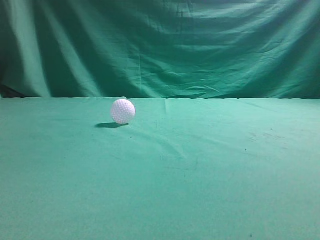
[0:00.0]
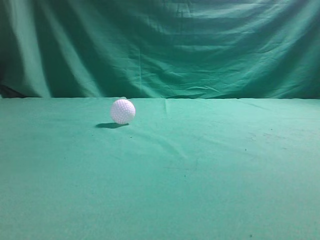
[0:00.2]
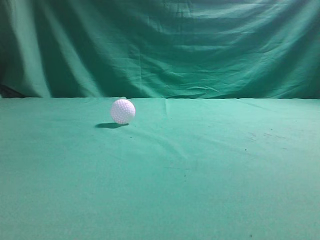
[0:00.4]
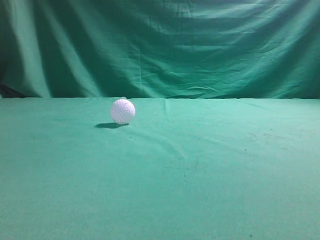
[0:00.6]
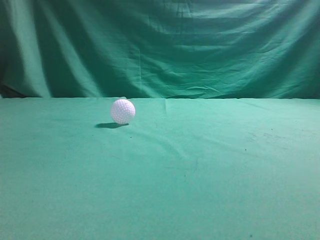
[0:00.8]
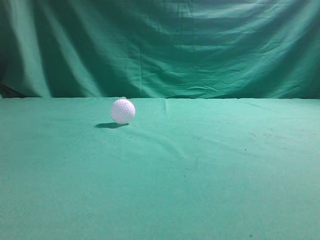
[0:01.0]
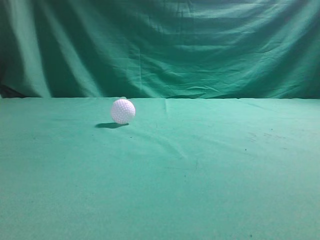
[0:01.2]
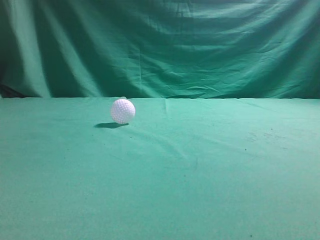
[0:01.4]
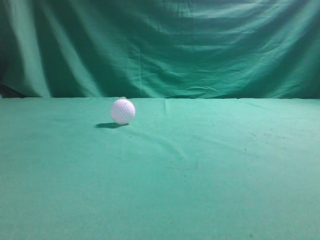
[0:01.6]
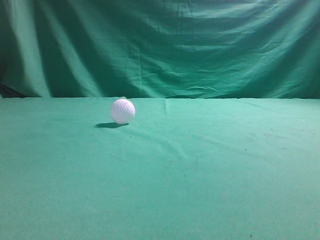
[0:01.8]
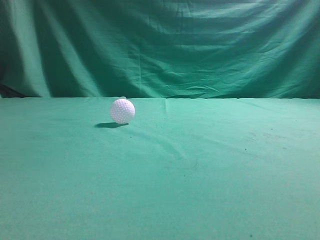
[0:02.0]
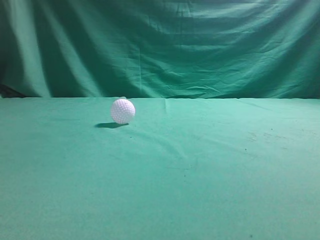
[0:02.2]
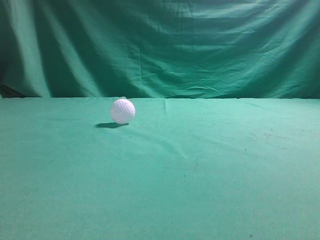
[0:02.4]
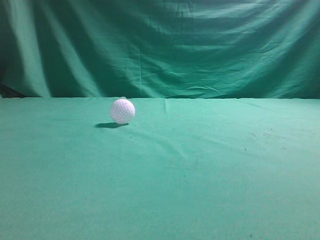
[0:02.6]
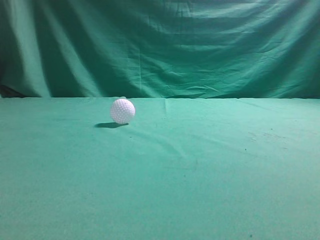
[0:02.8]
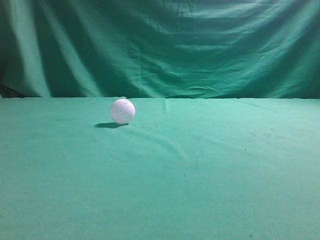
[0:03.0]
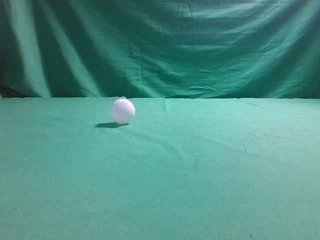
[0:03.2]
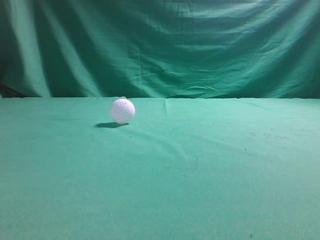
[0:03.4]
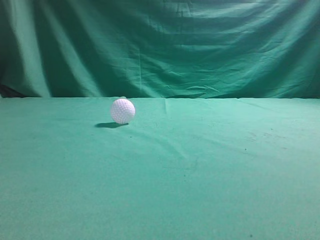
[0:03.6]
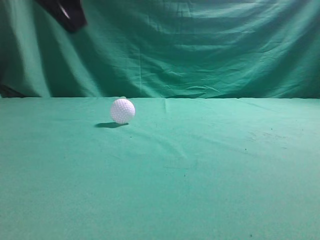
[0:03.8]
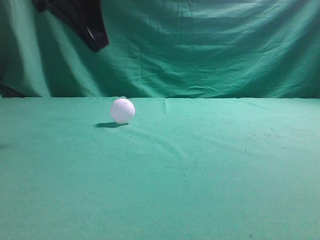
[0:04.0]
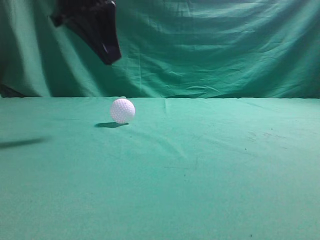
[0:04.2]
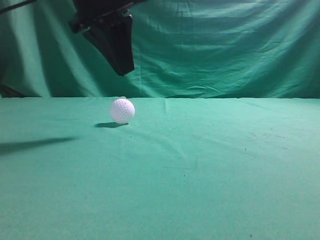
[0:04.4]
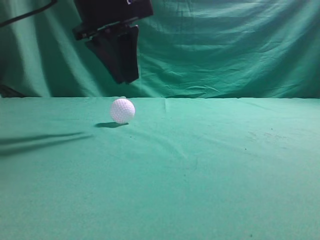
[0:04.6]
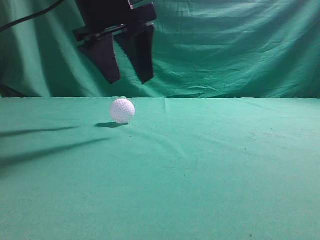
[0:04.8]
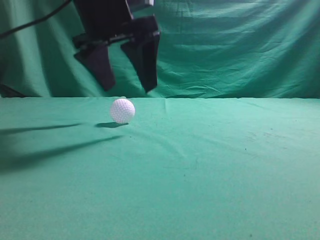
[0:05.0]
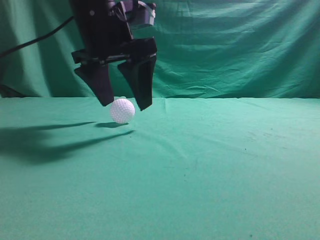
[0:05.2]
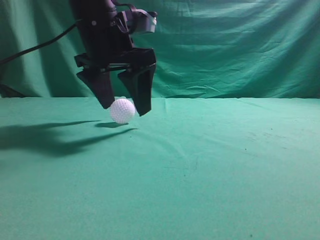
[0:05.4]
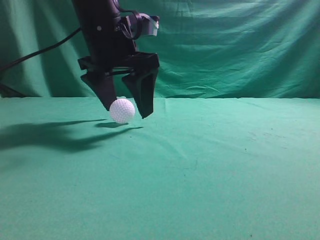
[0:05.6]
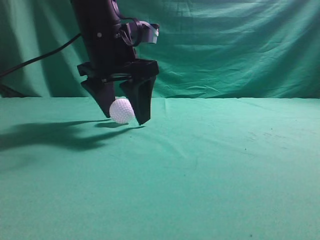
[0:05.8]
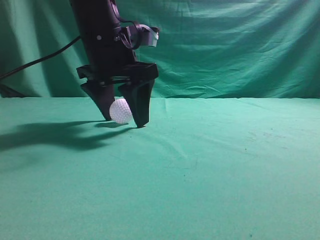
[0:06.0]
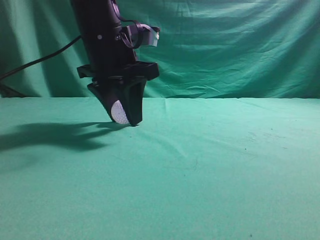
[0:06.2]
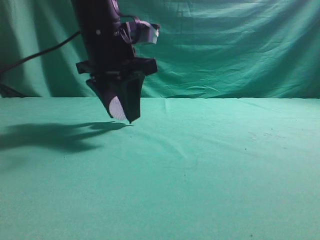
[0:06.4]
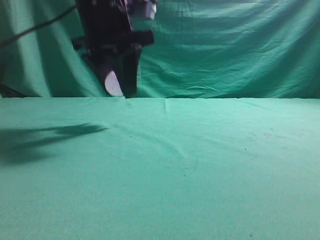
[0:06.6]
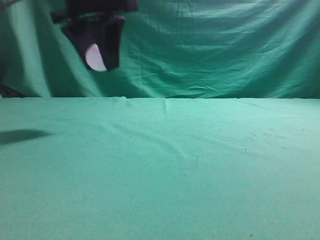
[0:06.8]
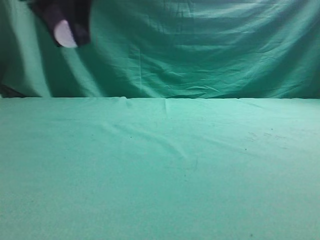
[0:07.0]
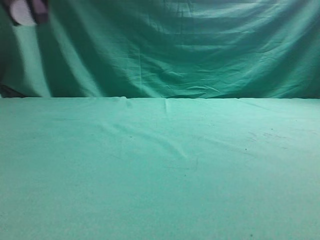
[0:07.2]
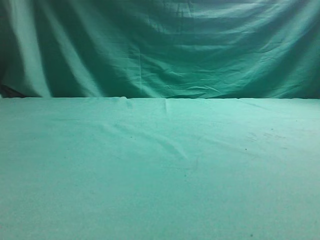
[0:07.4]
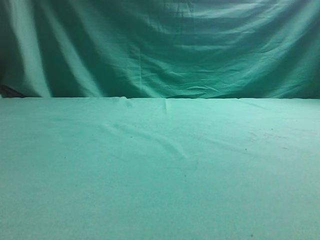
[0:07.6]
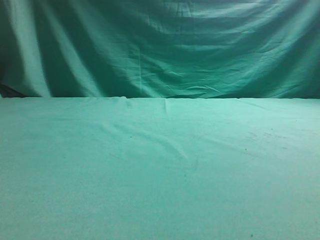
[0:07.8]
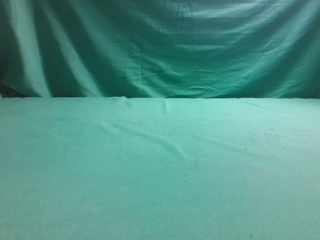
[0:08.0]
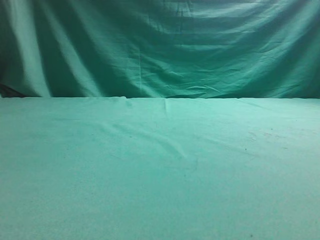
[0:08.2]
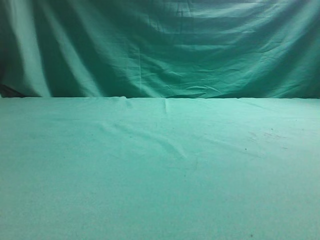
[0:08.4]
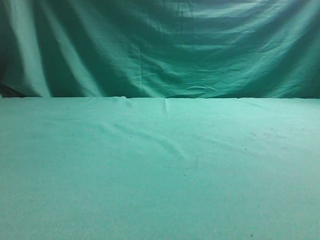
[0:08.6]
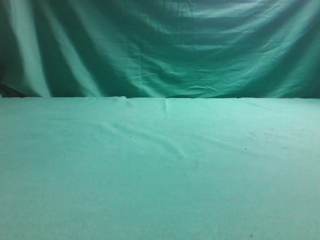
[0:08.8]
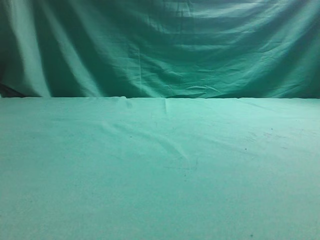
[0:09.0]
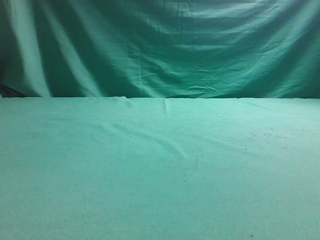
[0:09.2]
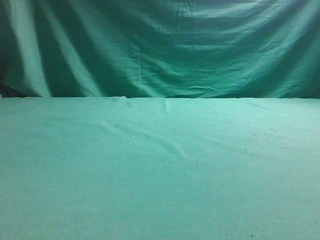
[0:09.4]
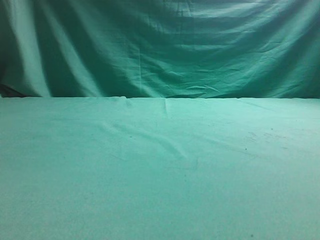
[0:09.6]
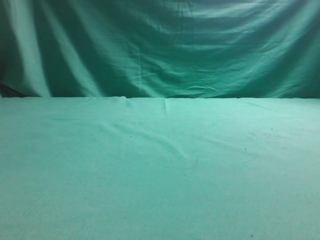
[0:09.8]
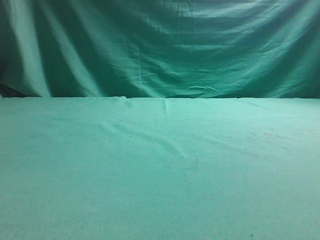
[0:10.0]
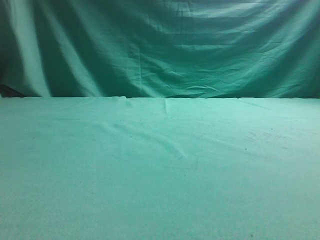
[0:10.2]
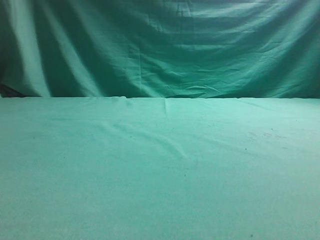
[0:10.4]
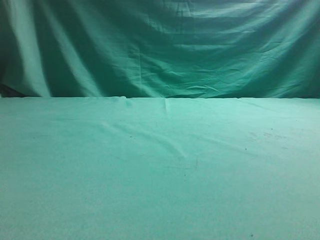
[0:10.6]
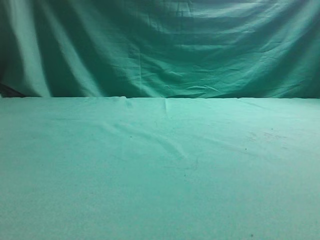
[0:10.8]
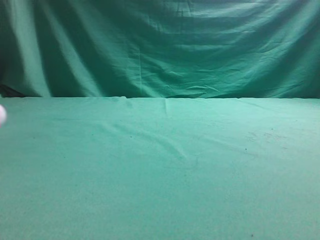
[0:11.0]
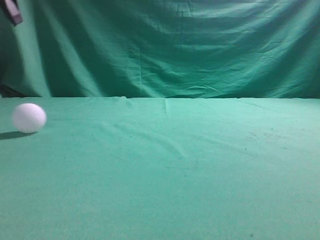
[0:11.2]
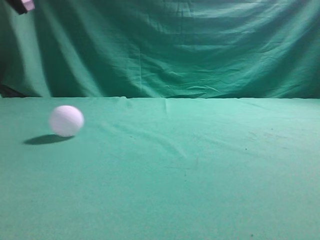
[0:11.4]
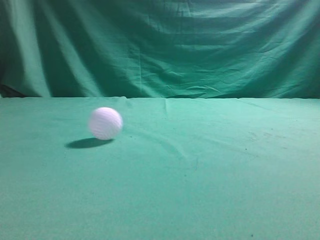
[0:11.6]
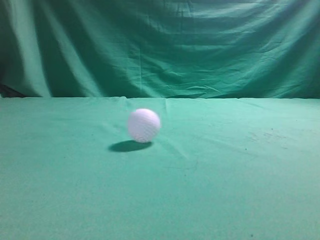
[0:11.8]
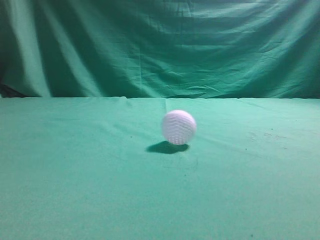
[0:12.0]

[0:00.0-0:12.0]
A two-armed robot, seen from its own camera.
Task of the whole recording: pick up the ball and place it on the plate, then pick up the ball from the plate and put it in the center of the table.
Step, 0:00.0 to 0:06.4: Grab the spherical object with your left arm.
Step, 0:06.6 to 0:10.4: Place the sphere on the white object.
0:03.0 to 0:04.4: The left gripper shifts approximately 30 cm forward and to the right.
0:04.4 to 0:06.0: The left gripper moves downward, approximately 5 cm, and opens up.
0:06.0 to 0:07.6: The left gripper moves to the left and upward, roughly 25 cm, and closes.
0:10.4 to 0:12.0: The left gripper is displaced upward and to the right by about 25 cm, and closes.

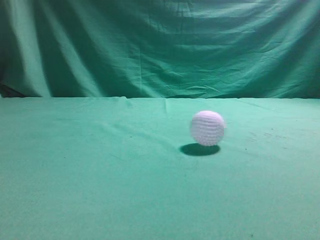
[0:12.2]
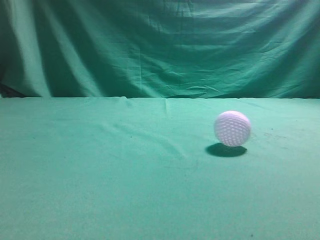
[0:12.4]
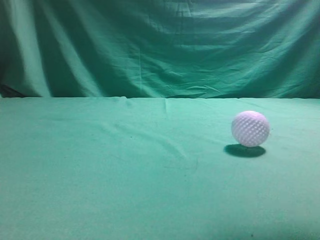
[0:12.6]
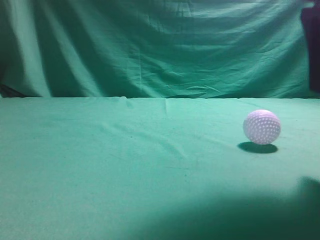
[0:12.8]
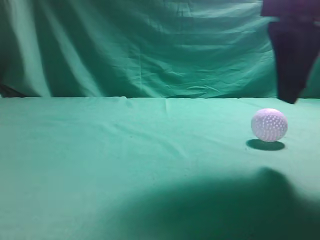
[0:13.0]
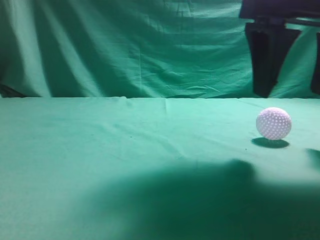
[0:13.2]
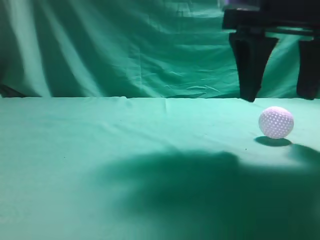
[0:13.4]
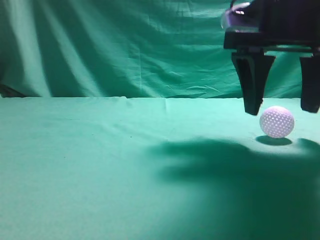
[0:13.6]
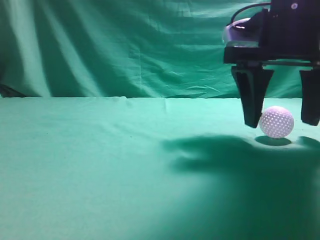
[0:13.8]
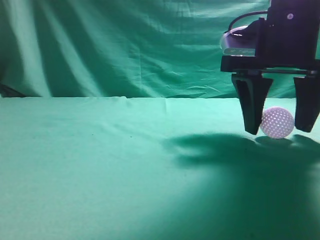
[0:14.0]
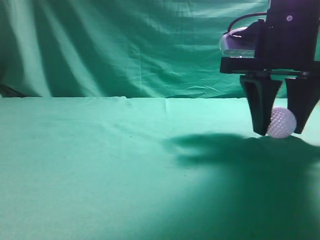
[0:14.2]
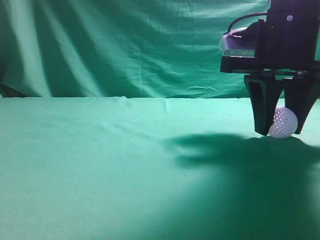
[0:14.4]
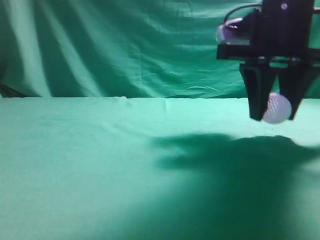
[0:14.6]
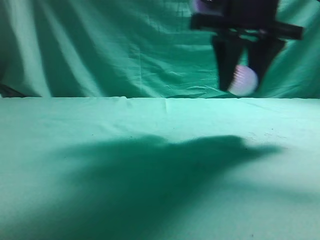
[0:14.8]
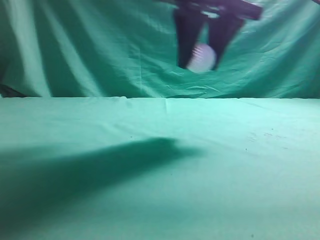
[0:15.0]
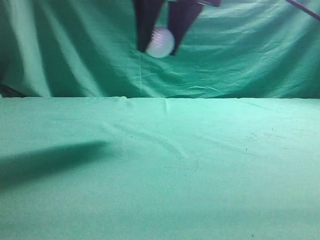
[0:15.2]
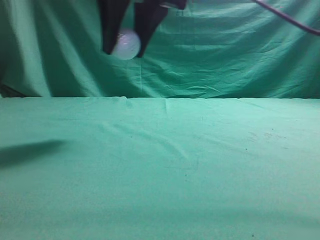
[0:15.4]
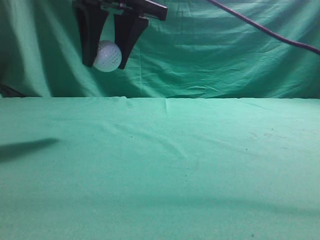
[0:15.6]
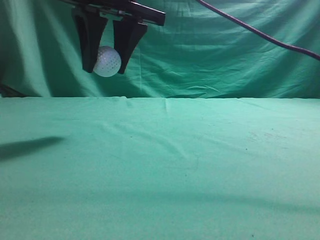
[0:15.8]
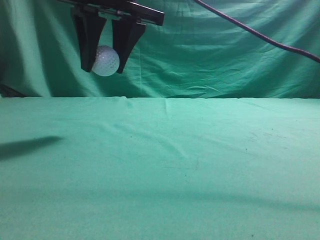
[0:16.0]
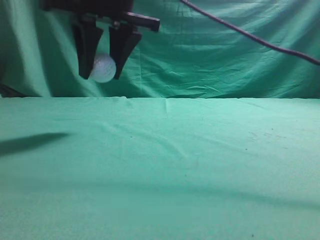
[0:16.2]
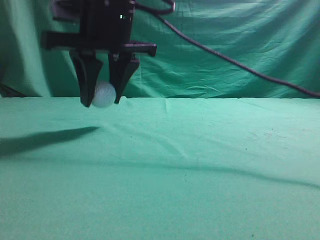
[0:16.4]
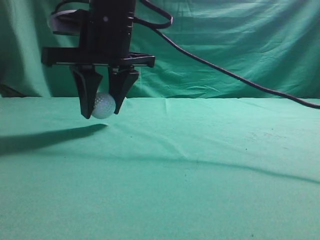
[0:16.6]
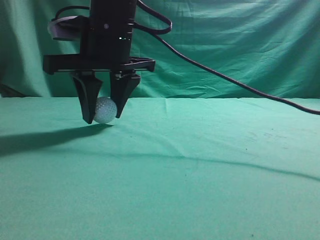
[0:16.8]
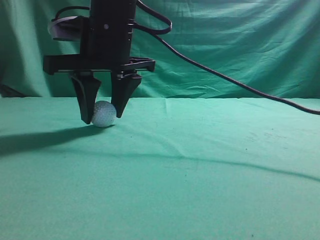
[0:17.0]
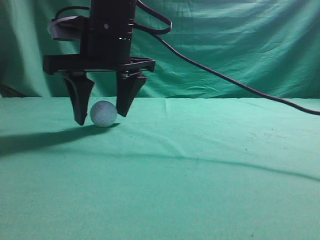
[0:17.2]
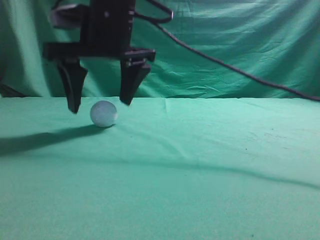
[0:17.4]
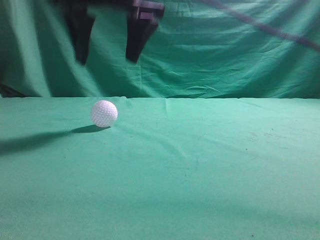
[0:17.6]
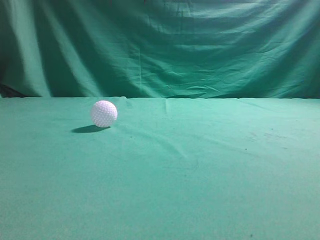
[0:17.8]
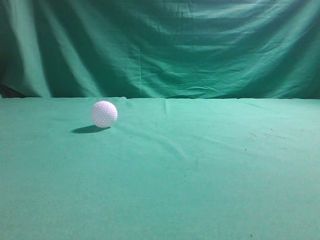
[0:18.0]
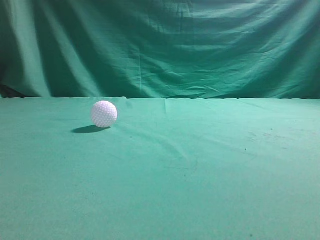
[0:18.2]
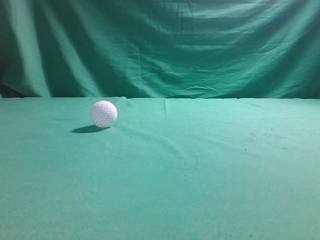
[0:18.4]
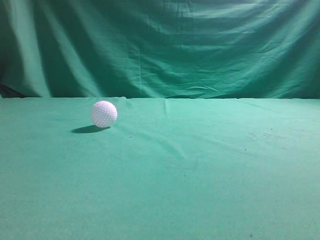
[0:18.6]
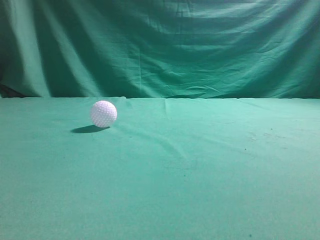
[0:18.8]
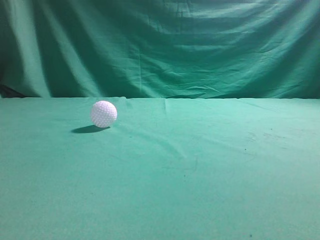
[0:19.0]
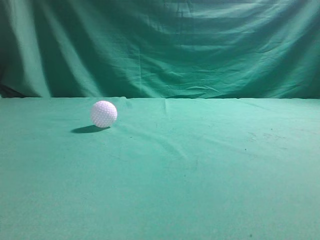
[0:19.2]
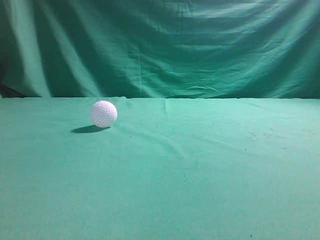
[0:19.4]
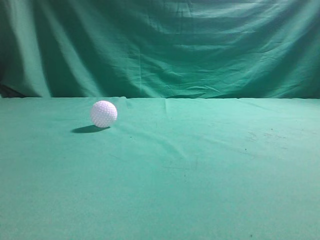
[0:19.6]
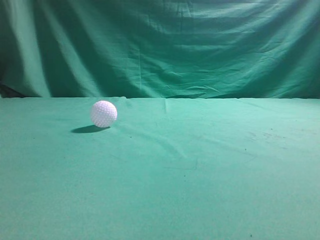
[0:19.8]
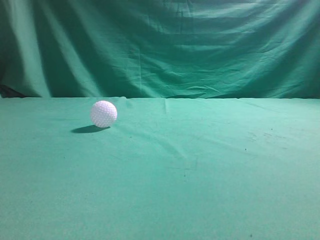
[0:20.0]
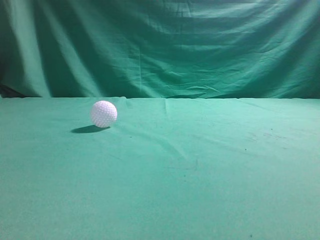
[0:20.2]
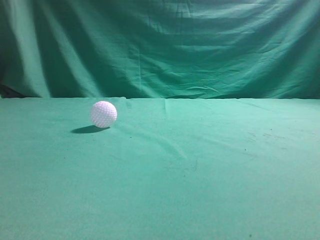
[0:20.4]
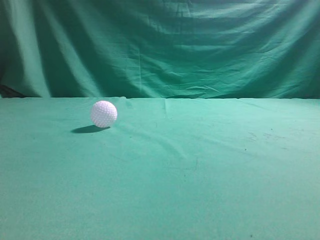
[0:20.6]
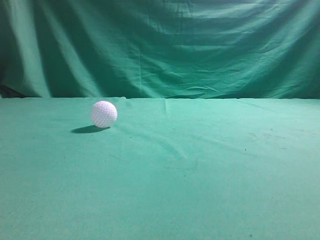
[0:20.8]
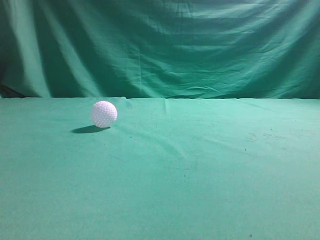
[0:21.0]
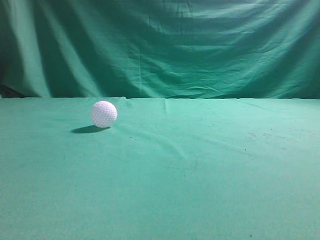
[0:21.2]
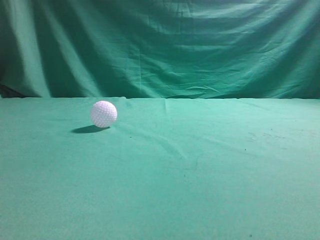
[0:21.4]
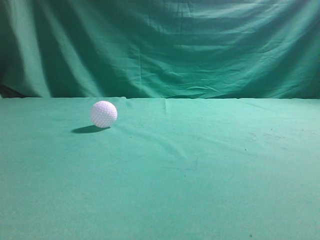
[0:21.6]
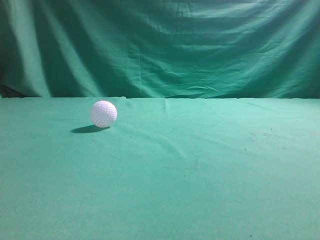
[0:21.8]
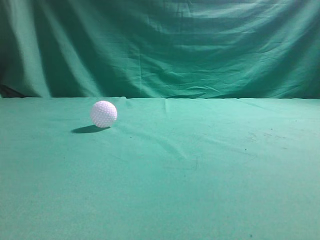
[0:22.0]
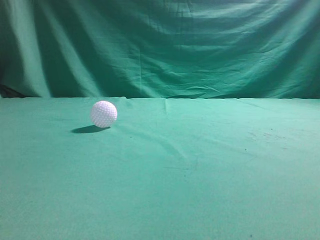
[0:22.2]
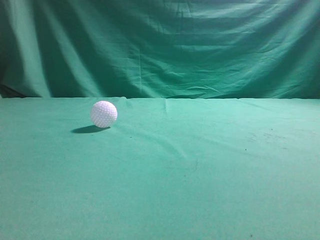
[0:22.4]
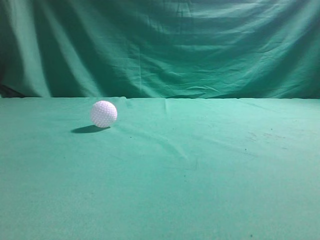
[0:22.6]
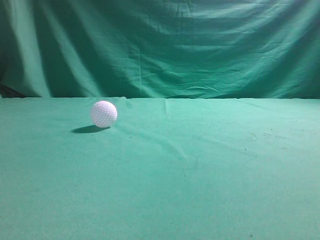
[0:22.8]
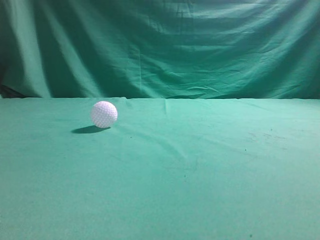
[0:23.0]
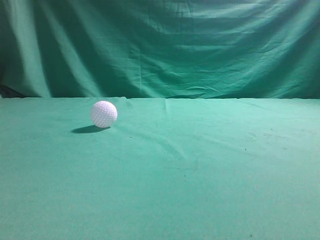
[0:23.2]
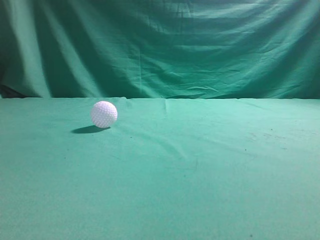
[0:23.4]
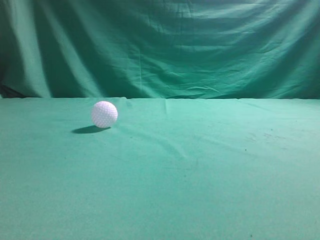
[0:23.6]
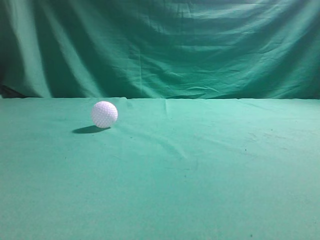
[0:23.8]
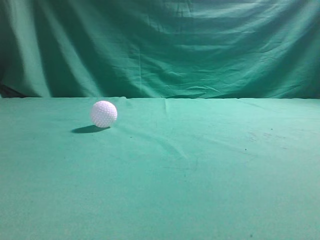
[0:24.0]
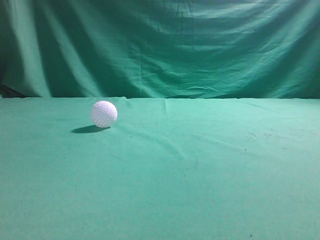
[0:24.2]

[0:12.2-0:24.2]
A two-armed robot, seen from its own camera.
Task of the whole recording: pick up the ball and place it on the plate, then pick up the ball from the plate and put it in the center of the table.
Step, 0:12.2 to 0:14.4: Grab the rolling spherical object.
Step, 0:14.6 to 0:17.4: Put the picked-up object on the table.
0:12.2 to 0:13.8: The left gripper shifts roughly 10 cm backward; the right gripper is displaced forward, downward and to the left by some 20 cm, and opens.
0:13.8 to 0:15.2: The right gripper moves to the left and upward, roughly 15 cm, and closes its fingers; the left gripper is displaced backward by about 5 cm.
0:15.2 to 0:16.6: The right gripper is displaced to the left and downward by approximately 10 cm.
0:16.6 to 0:18.2: The right gripper moves upward and to the right, about 30 cm, and closes its fingers.
